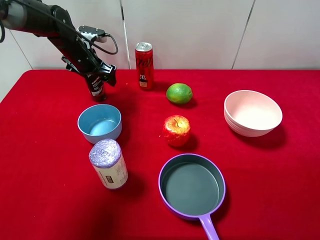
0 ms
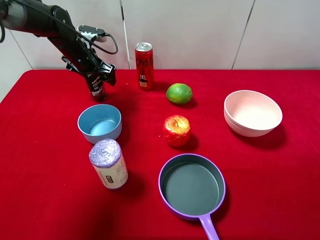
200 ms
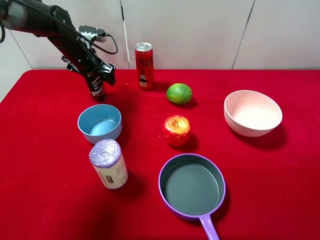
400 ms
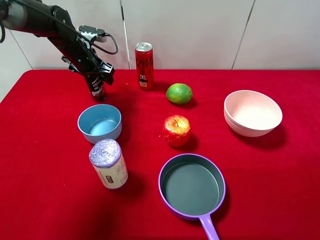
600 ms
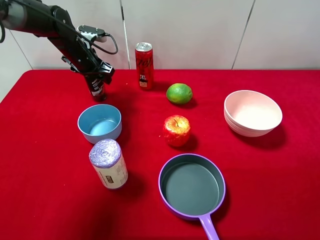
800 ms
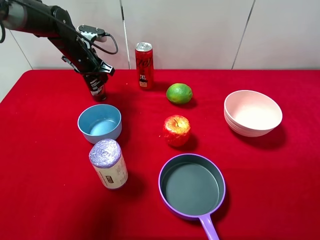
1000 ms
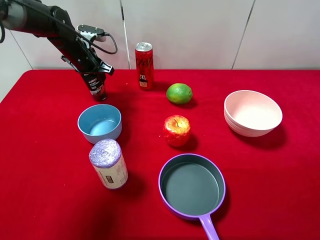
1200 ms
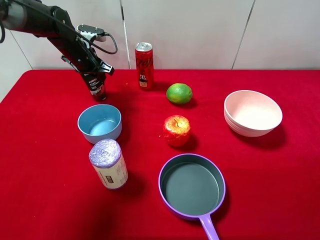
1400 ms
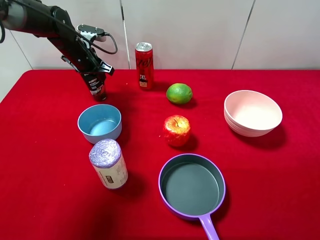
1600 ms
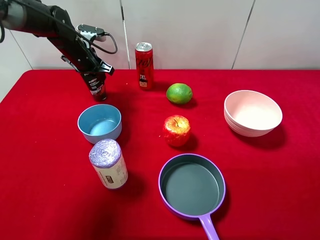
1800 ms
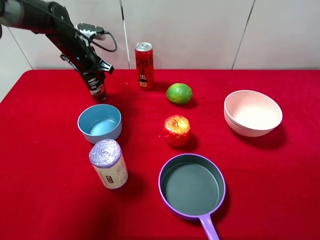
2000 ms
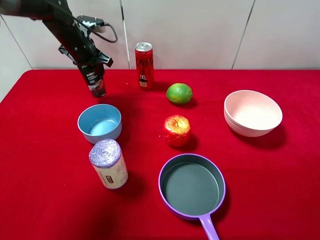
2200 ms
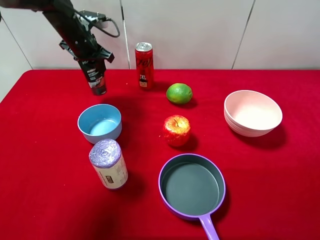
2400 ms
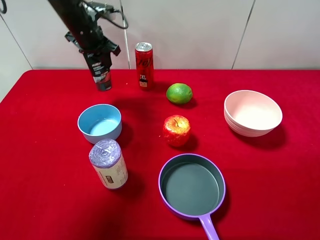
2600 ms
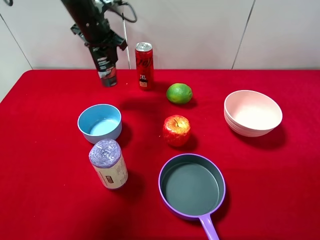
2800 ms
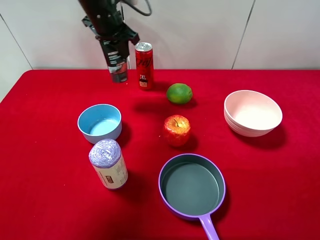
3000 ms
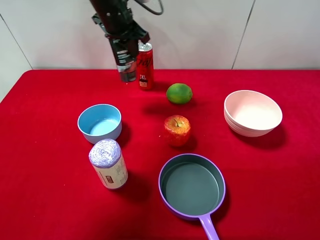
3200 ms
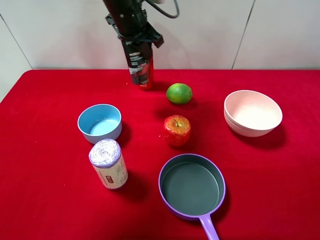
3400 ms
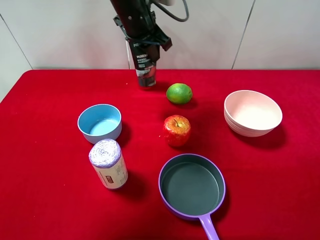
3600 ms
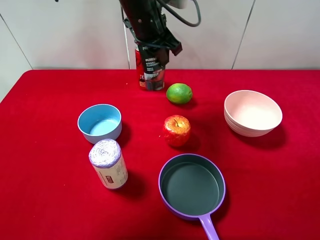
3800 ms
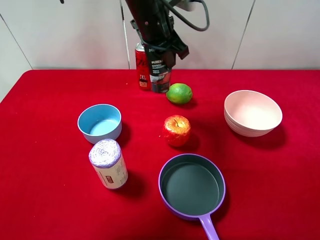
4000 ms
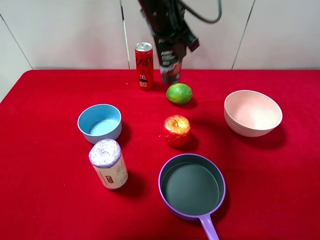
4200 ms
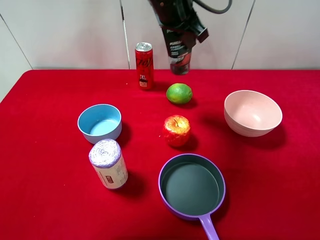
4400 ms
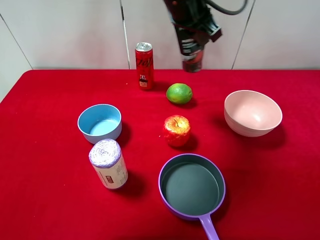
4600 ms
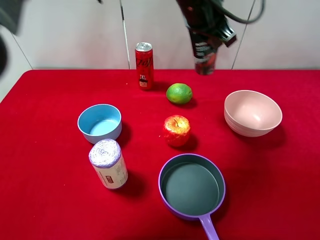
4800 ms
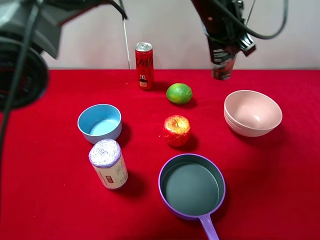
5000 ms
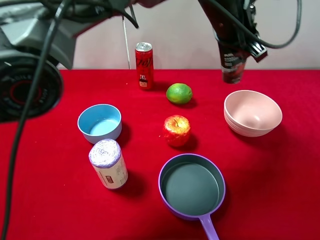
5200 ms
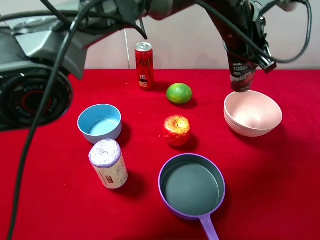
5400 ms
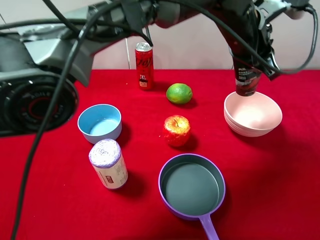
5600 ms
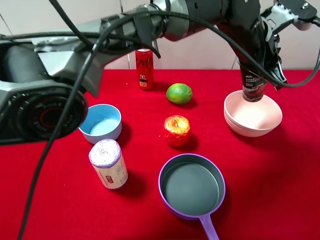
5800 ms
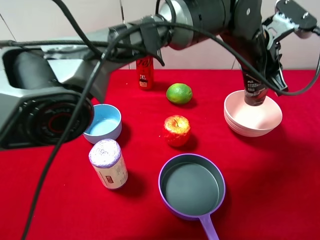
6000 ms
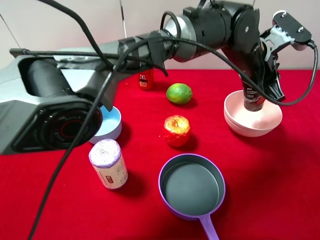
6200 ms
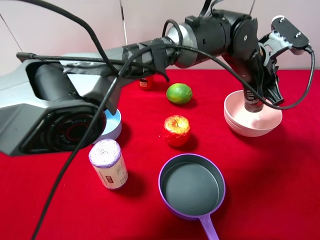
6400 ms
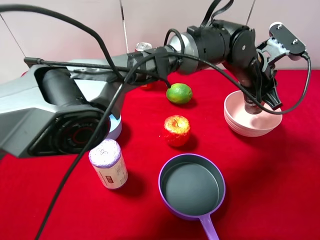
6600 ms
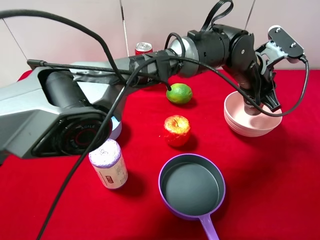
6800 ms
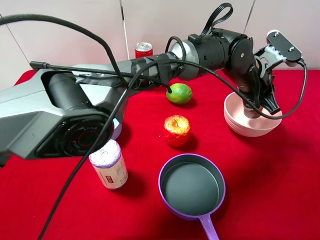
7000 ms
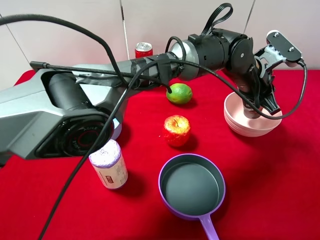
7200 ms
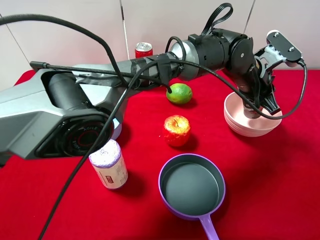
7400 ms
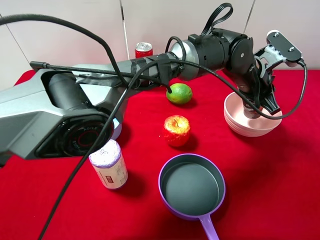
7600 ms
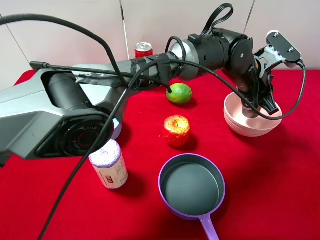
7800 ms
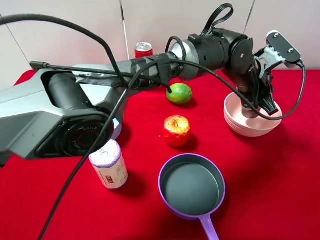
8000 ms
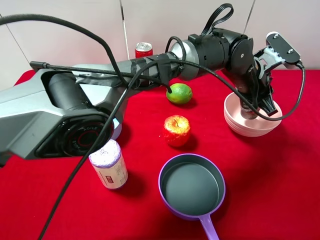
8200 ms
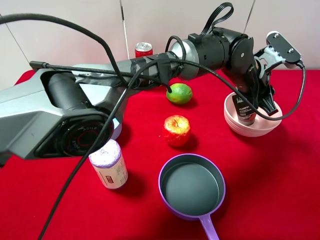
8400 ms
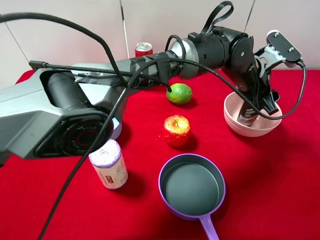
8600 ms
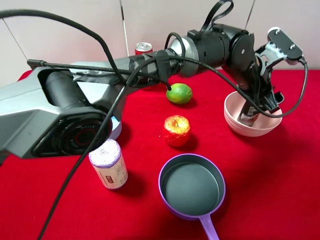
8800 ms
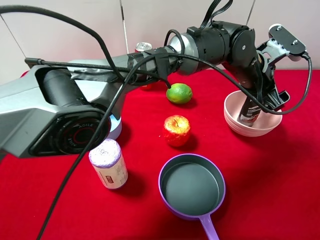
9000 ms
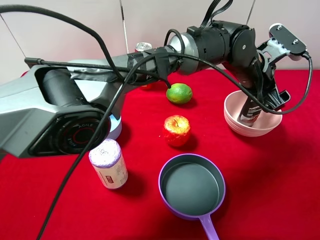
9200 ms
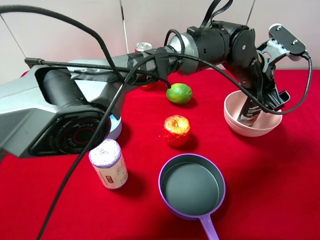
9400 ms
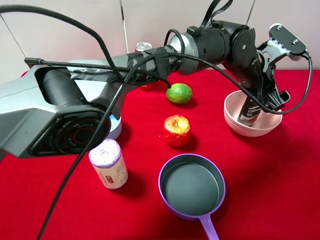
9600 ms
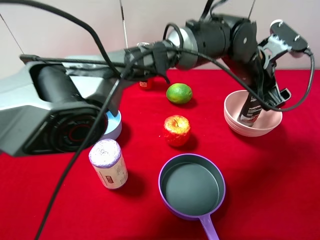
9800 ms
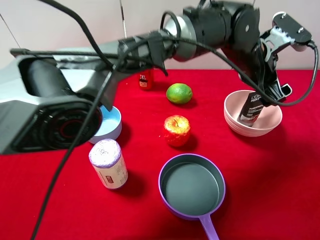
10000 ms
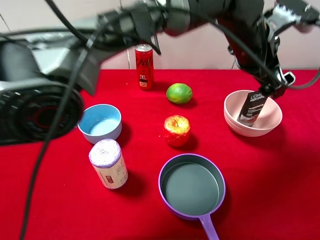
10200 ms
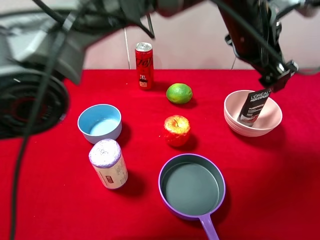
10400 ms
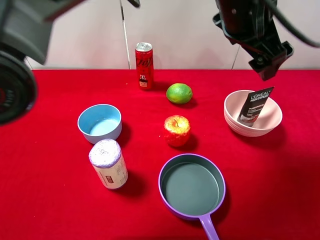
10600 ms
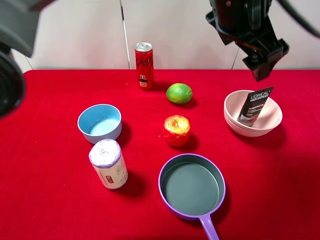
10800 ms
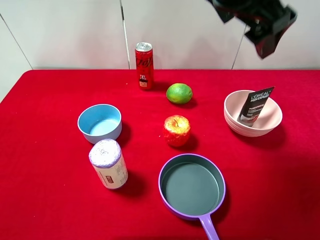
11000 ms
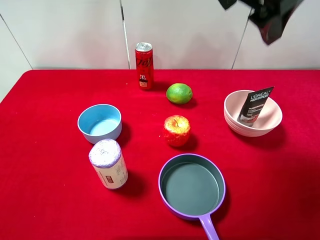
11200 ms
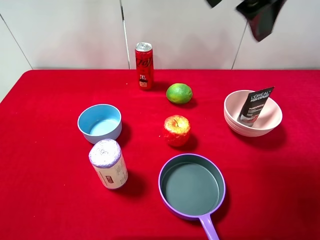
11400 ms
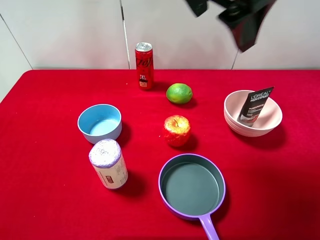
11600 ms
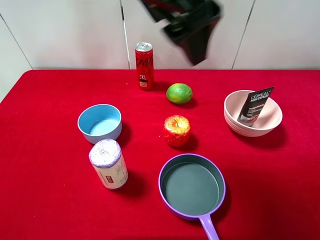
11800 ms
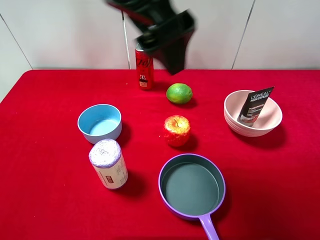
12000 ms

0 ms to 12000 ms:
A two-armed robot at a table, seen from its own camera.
Task of the whole recording: pick up an item with a gripper and place it in a random container on the desktop.
0 ms to 1600 ms: The left gripper closes its fingers.
1600 ms to 3000 ms: The left gripper moves upward and to the right, roughly 15 cm.
3000 ms to 4400 ms: The left gripper travels to the right and backward by roughly 15 cm.
4400 ms to 6000 ms: The left gripper goes approximately 15 cm to the right.
6000 ms to 7600 ms: The left gripper shifts approximately 5 cm downward.
7600 ms to 9000 ms: The left gripper opens.
9000 ms to 10400 ms: The left gripper moves upward, about 10 cm.
10400 ms to 12000 ms: The left gripper heads to the left, upward and backward, covering some 25 cm.

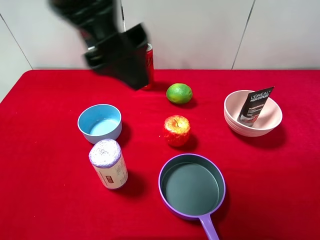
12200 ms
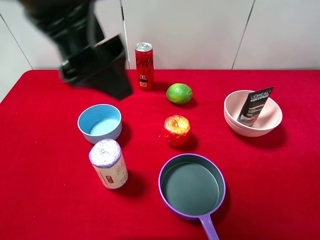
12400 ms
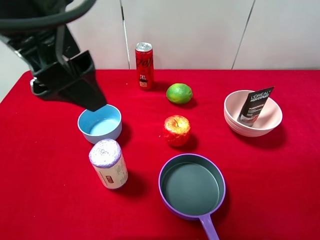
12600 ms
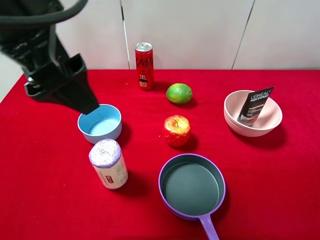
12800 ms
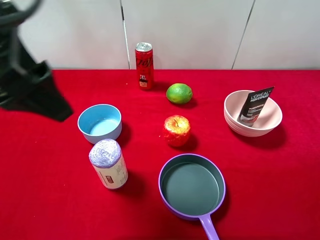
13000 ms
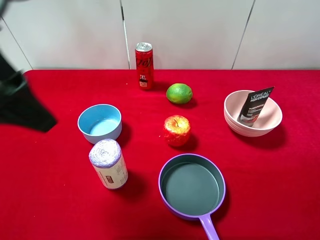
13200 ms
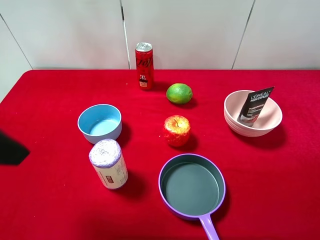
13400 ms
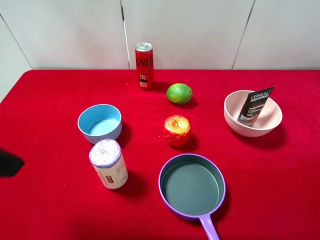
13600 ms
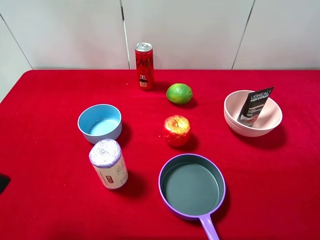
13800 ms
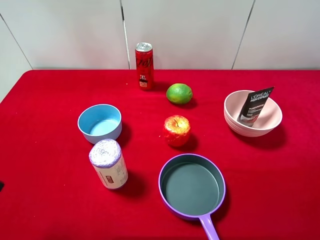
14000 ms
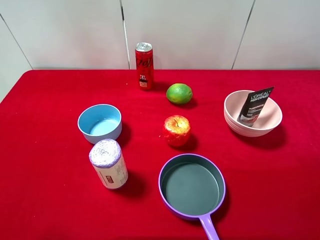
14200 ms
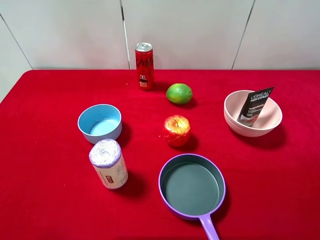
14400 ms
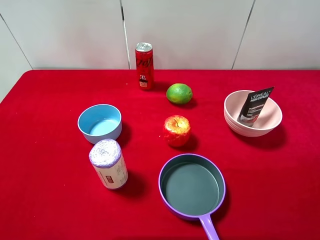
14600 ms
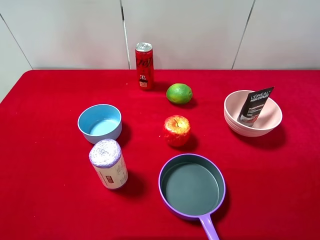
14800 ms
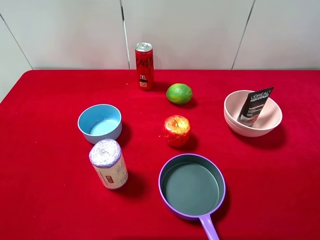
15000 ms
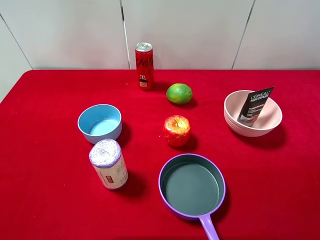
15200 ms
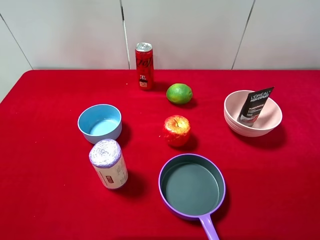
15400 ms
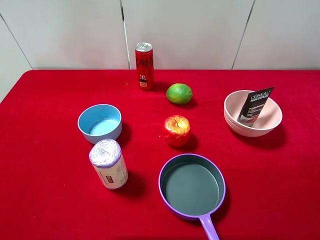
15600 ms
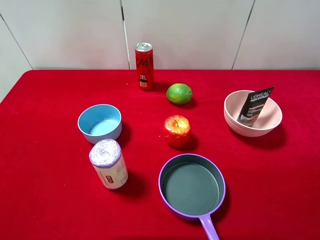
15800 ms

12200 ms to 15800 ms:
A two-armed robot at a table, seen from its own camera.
Task of the whole recording: pick up an item with a gripper and place it in a random container on the desktop.
12200 ms to 14000 ms: The left gripper shifts approximately 25 cm to the left, backward and downward.
